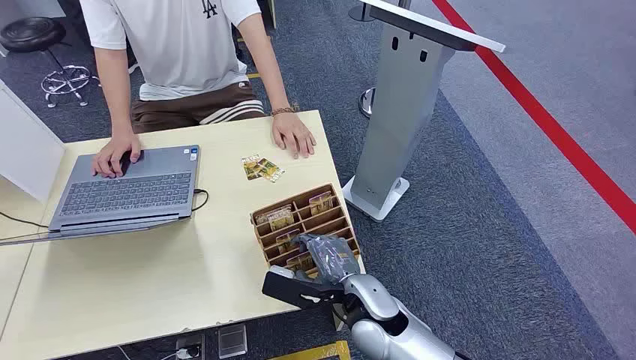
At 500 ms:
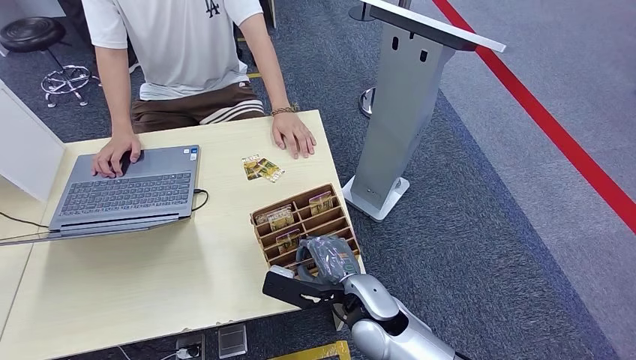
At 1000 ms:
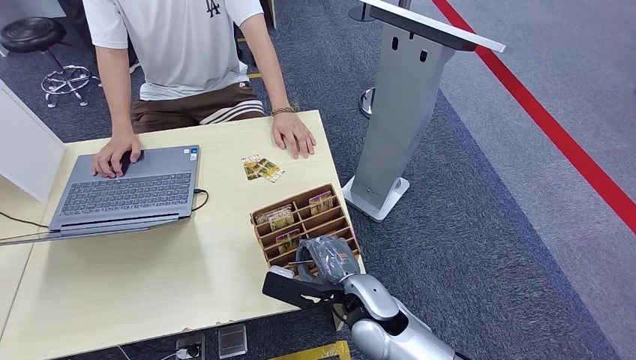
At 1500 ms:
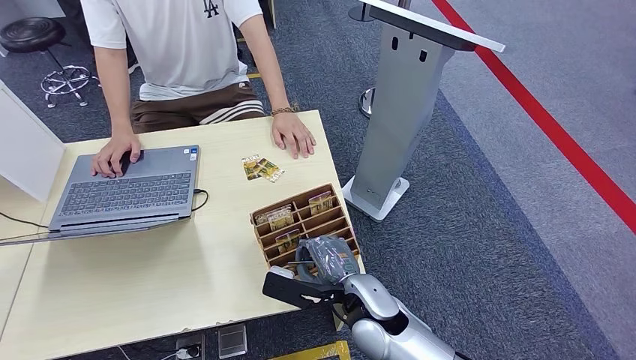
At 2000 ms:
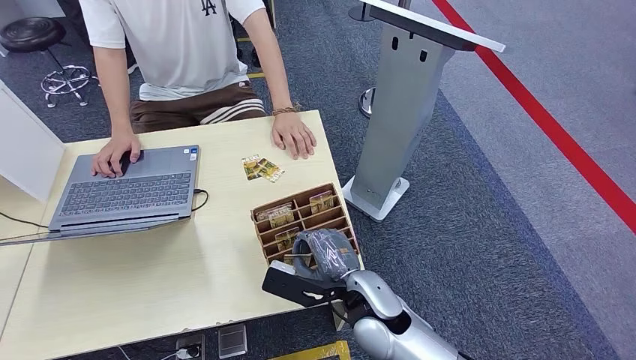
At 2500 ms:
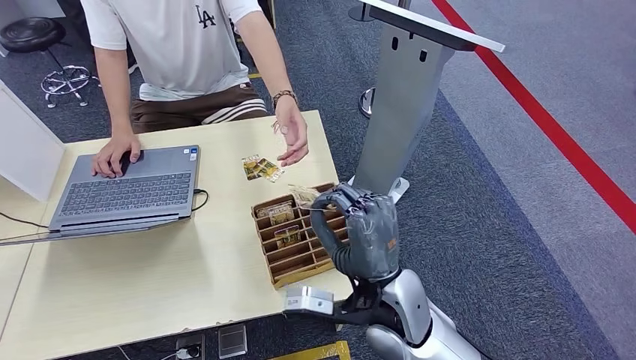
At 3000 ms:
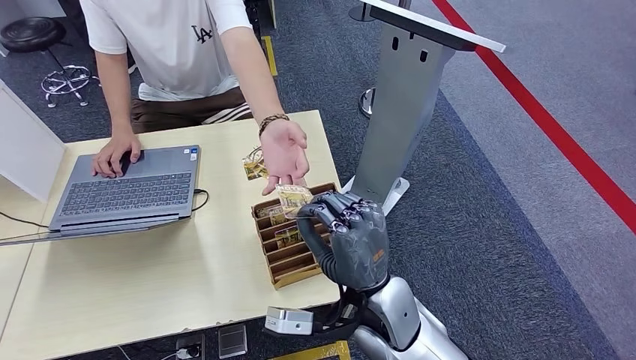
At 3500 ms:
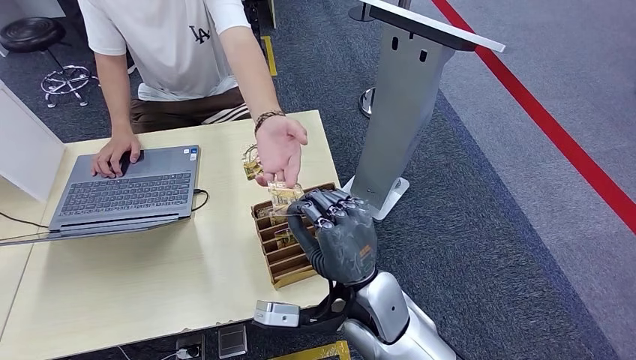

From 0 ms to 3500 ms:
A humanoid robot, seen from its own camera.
Step, from 0 ms to 2000 ms: Pick up the key card from the card box.
Step, from 2500 ms to 3500 ms: Hand the key card to the target.
From 2000 ms to 3500 ms: The right hand shifts about 5 cm upward.
